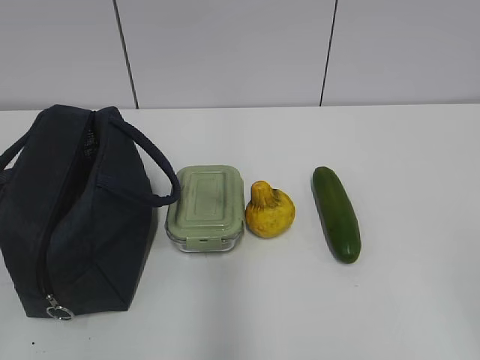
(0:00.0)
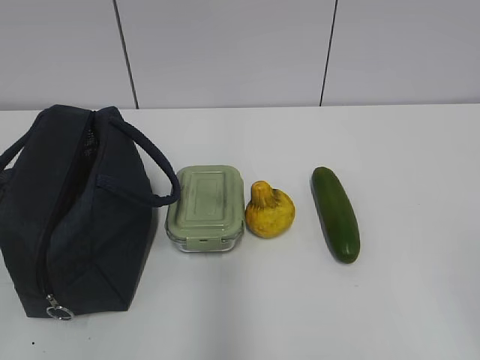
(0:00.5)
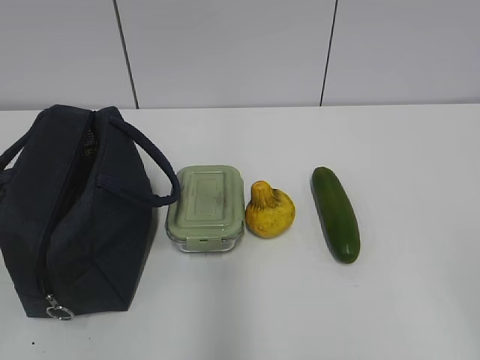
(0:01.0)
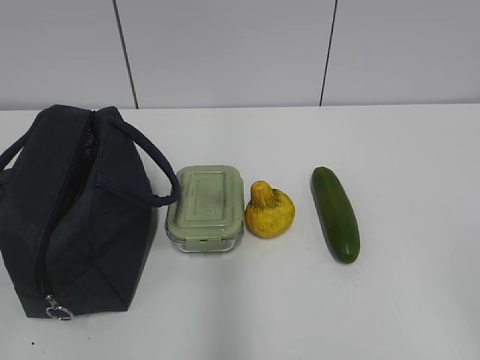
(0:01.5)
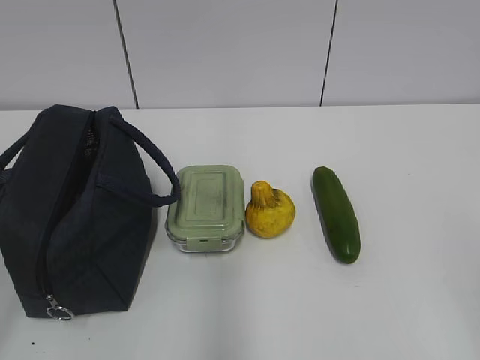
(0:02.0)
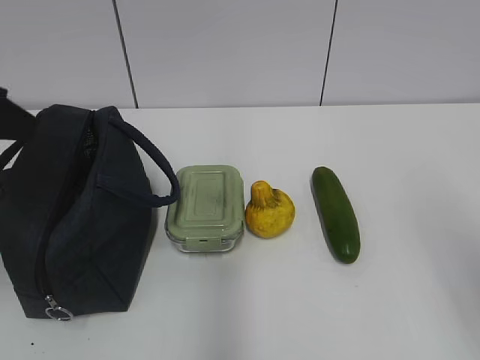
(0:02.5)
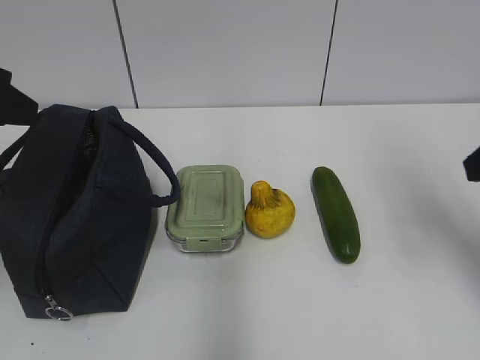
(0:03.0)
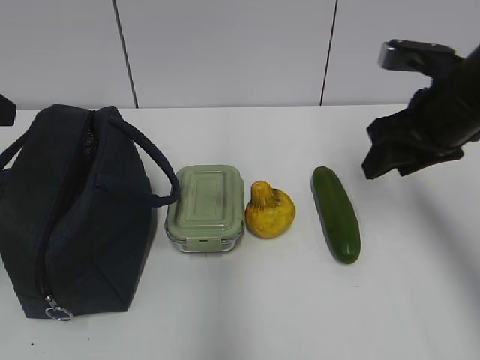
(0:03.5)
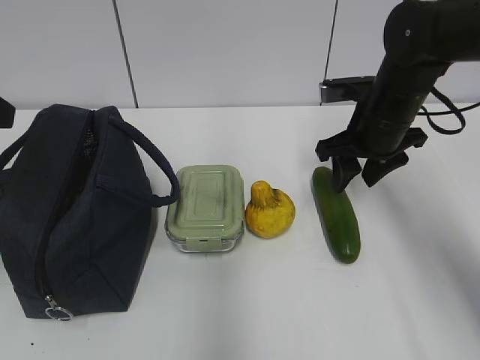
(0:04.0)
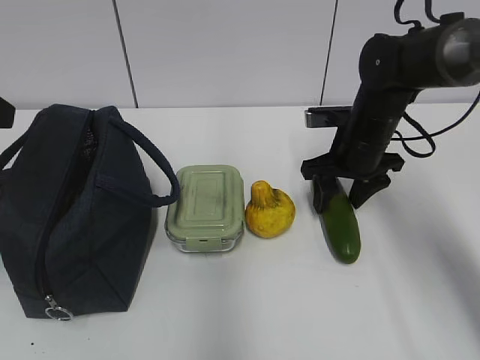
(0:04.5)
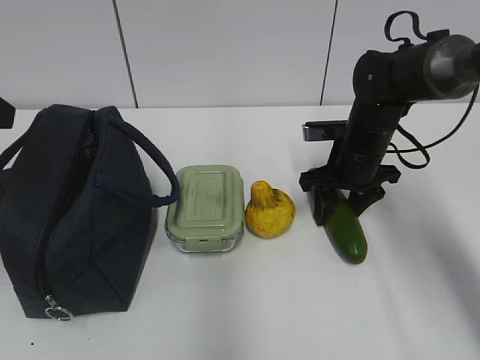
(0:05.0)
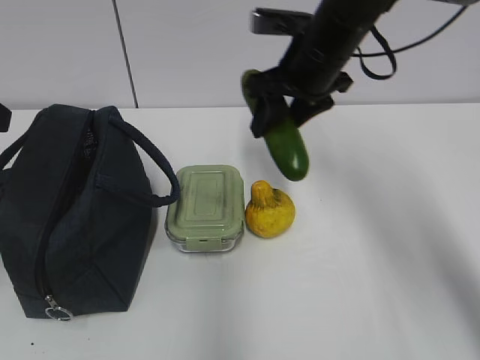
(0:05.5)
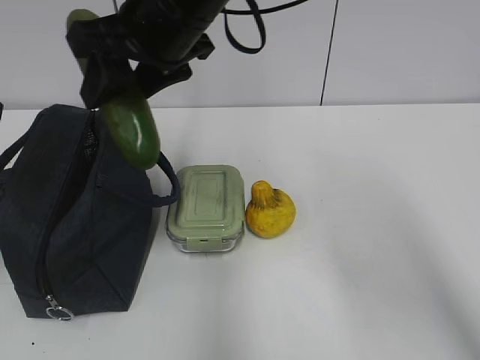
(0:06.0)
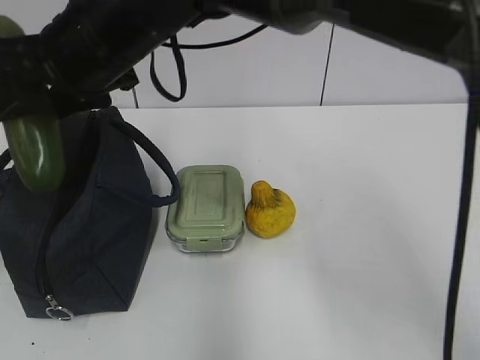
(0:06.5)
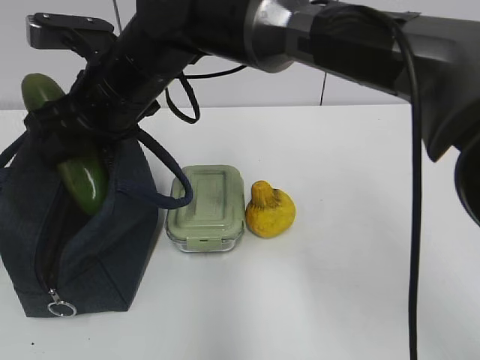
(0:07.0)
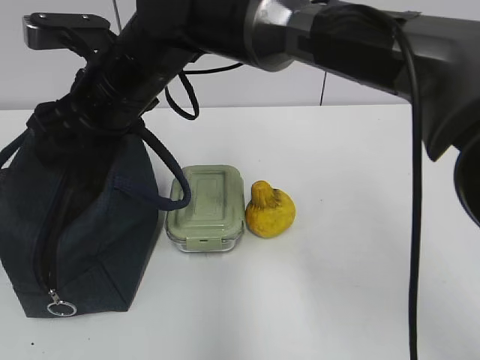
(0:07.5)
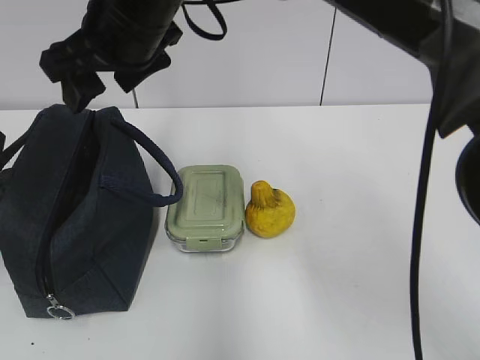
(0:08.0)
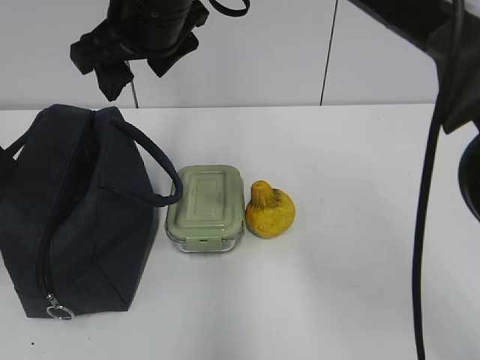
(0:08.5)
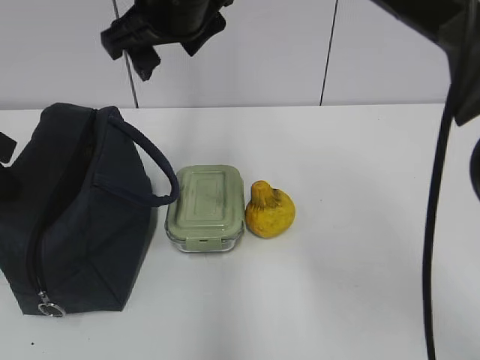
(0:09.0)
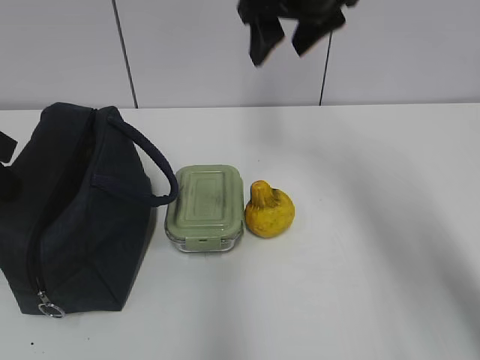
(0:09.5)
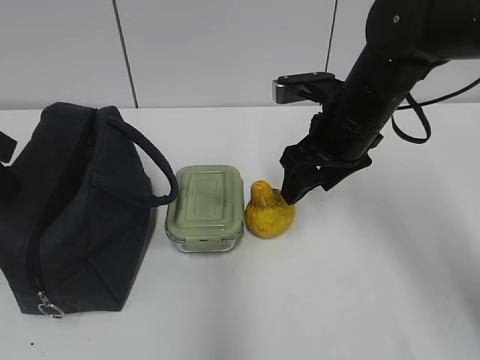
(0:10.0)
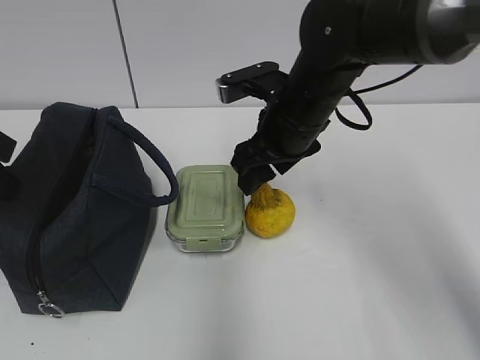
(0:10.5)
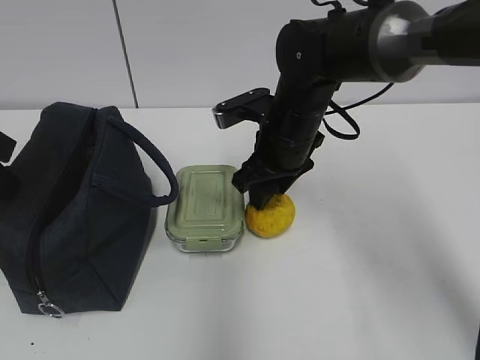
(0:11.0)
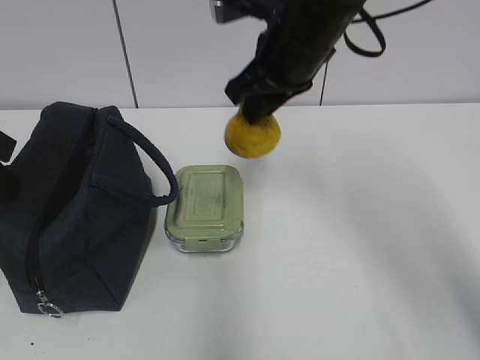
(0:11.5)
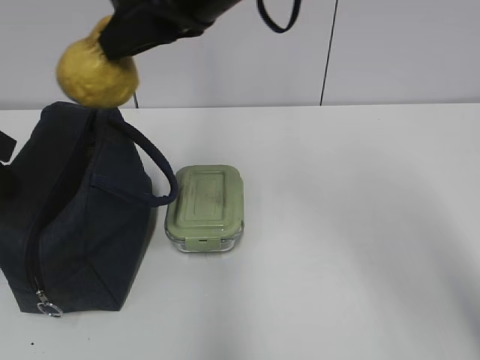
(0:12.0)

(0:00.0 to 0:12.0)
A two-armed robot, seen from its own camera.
Step, 0:00.0 - 0:04.5: Grab the cucumber with your right hand.
Step, 0:07.0 - 0:07.5: Place it into the bag with your right hand.
Step, 0:08.0 - 0:11.0: Grab the pear with your right hand.
0:02.0 - 0:04.0: The right gripper is displaced forward by about 40 cm; the left gripper moves forward, approximately 15 cm.
0:04.0 - 0:06.0: The right gripper shifts about 25 cm to the left and upward.
0:08.0 - 0:10.0: The left gripper closes its fingers; the right gripper moves to the right and downward, some 25 cm.
0:10.0 - 0:12.0: The right gripper goes some 20 cm upward and to the left, and closes its fingers.

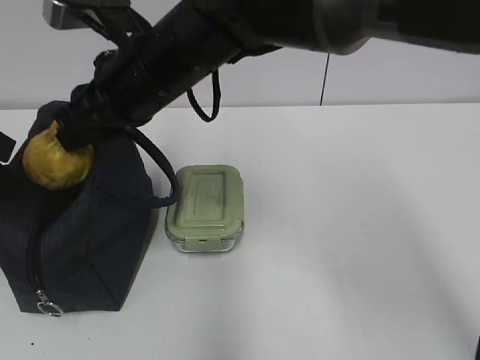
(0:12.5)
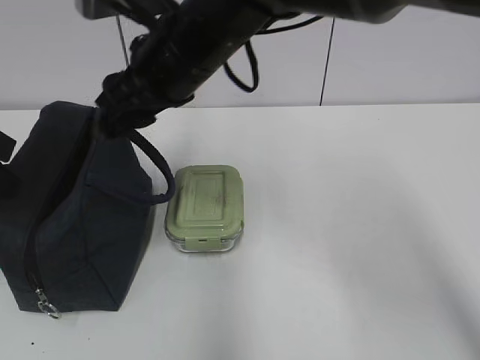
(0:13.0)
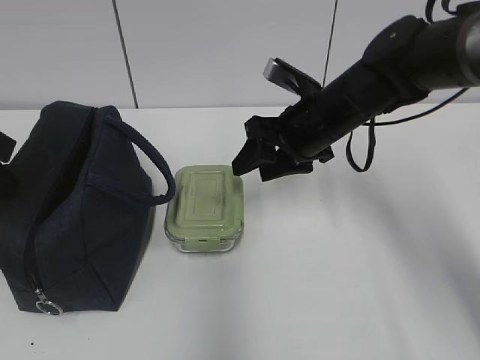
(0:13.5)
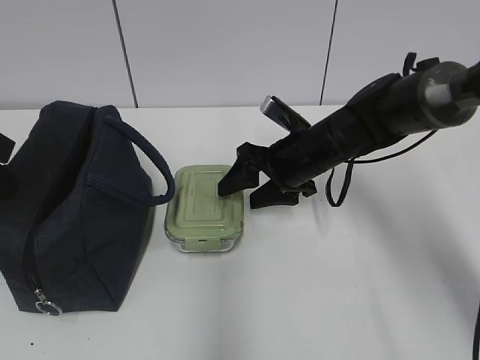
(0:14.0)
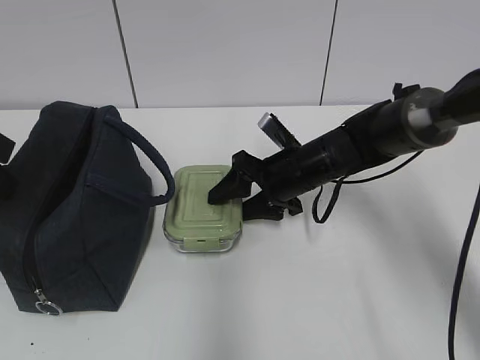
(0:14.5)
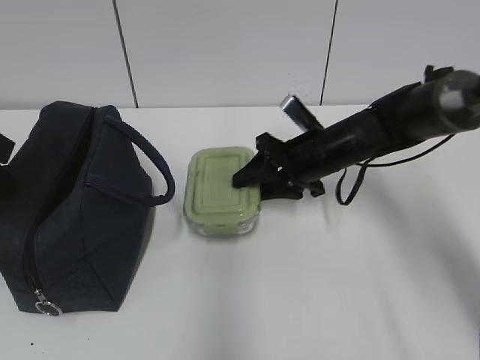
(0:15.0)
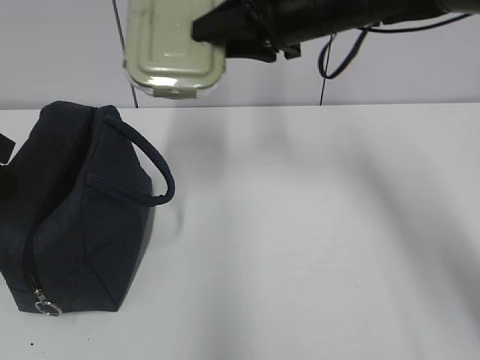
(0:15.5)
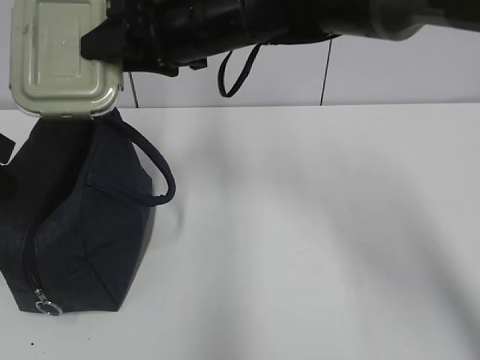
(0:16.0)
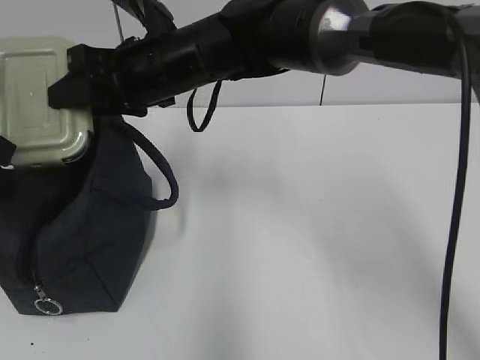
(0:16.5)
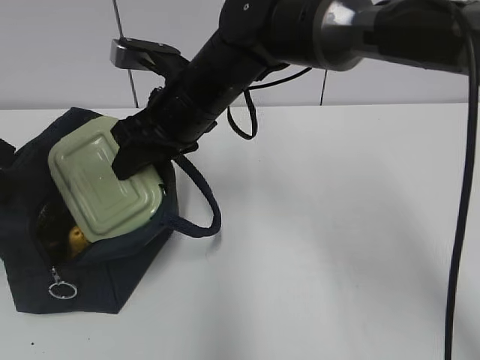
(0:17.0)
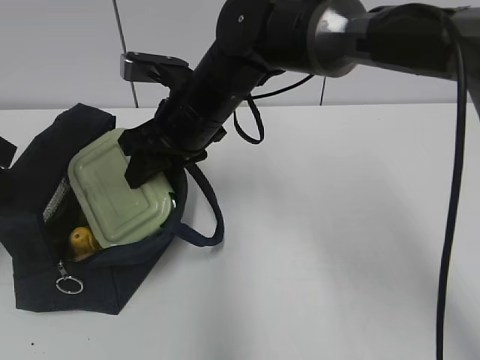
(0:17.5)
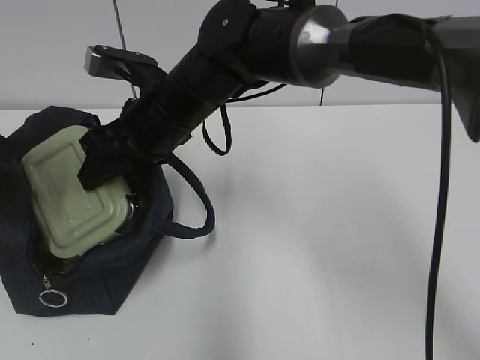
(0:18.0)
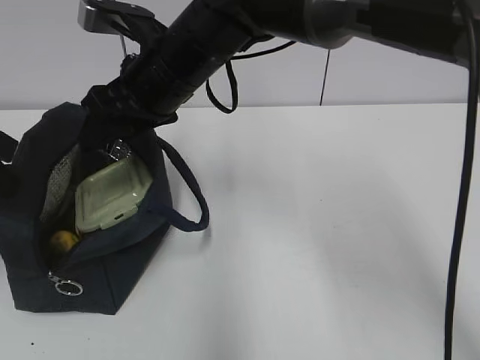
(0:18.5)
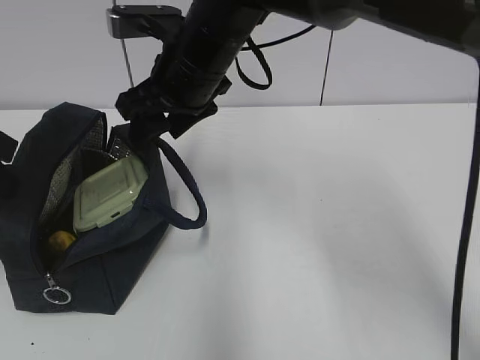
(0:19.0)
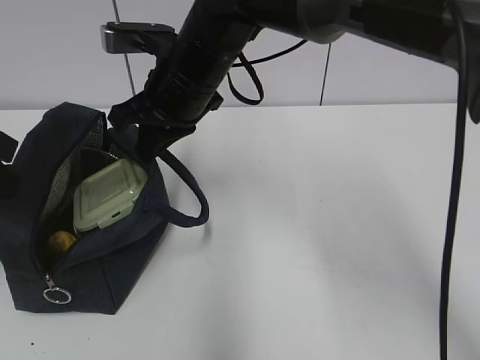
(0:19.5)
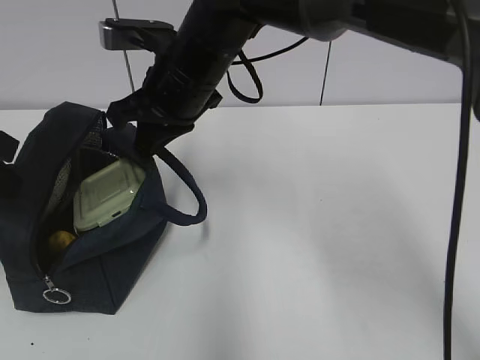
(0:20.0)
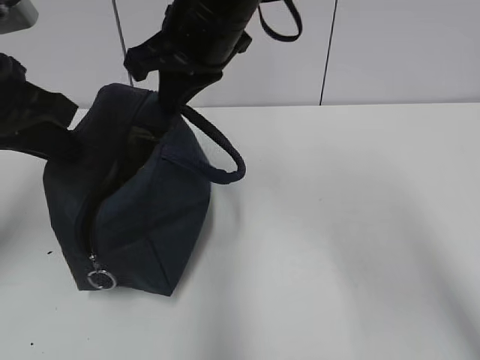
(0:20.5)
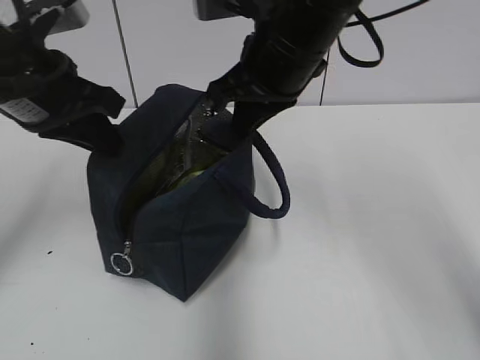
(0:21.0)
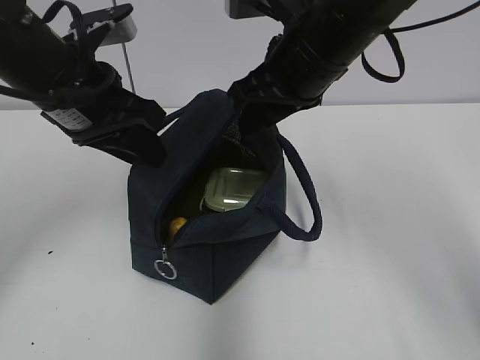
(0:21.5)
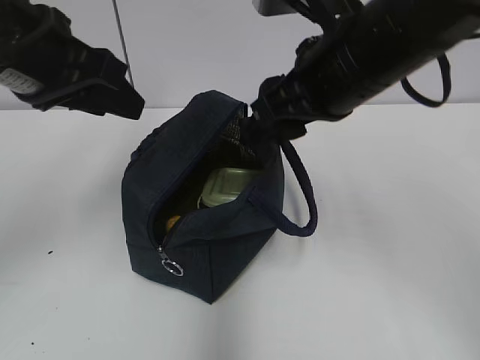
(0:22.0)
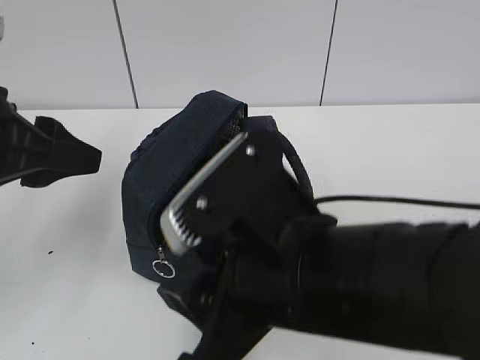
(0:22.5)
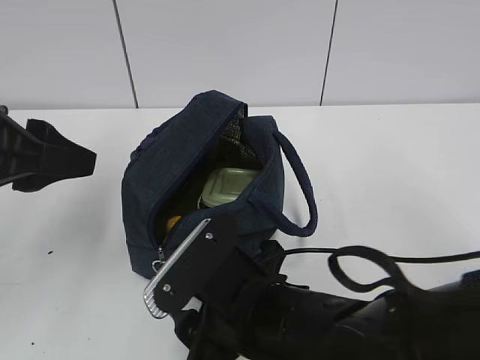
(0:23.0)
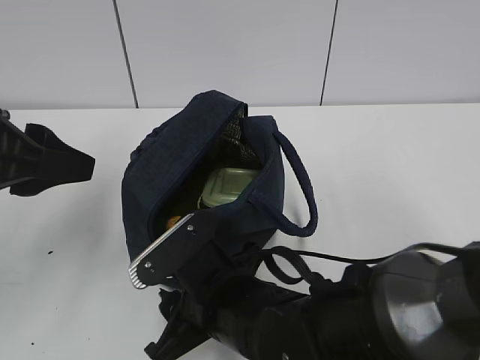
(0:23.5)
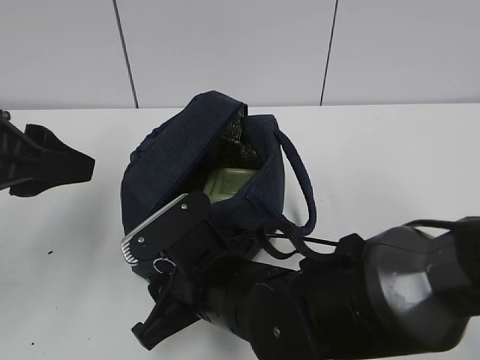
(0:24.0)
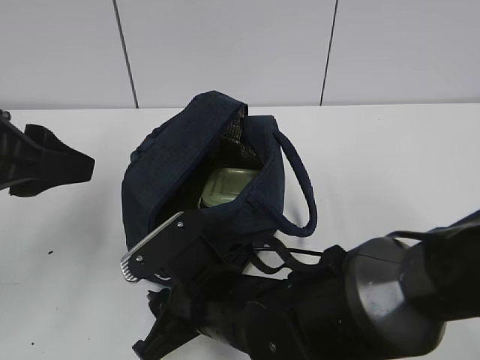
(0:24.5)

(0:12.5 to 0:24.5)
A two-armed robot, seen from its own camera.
Step, 0:13.0 - 0:14.5: Grab the lunch box with your right hand.
Step, 0:19.0 - 0:19.5: Grab the lunch bag with your right hand.
Step, 0:20.5 - 0:21.5: Move the lunch bag to the right.
0:12.5 - 0:14.5: The right gripper is displaced downward and to the right by some 25 cm, and opens up.
0:14.5 - 0:16.5: The right gripper goes roughly 20 cm upward and to the left.
0:18.5 - 0:20.5: The left gripper travels to the right by about 5 cm. Meanwhile the right gripper moves upward, approximately 5 cm, and closes its fingers.
0:20.5 - 0:22.5: The right gripper heads backward and downward, covering roughly 25 cm, and opens up, while the left gripper shifts approximately 5 cm backward, and opens.
0:22.5 - 0:24.5: The right gripper travels downward, forward and to the left by about 15 cm.

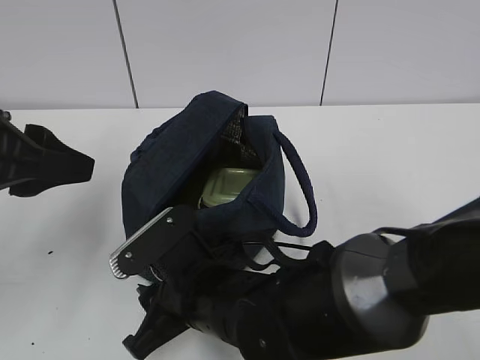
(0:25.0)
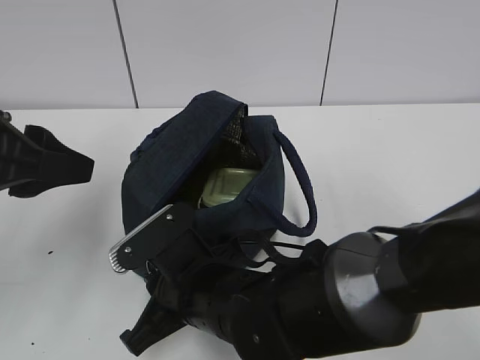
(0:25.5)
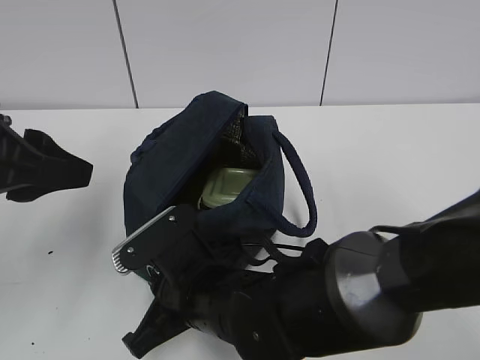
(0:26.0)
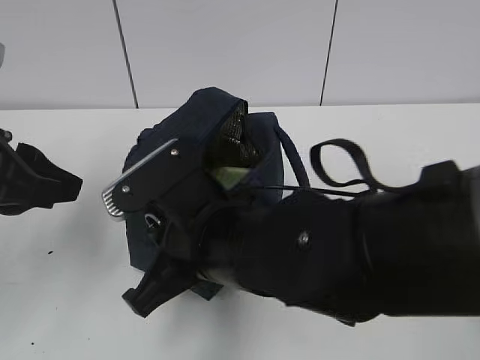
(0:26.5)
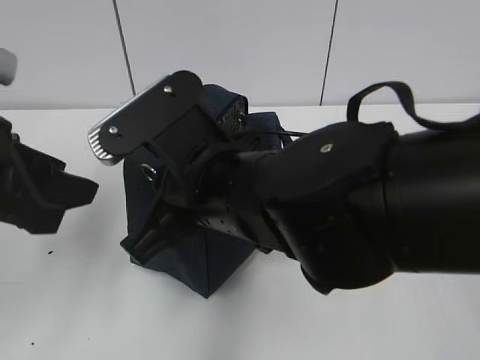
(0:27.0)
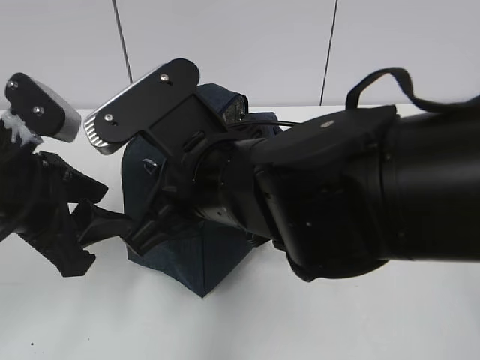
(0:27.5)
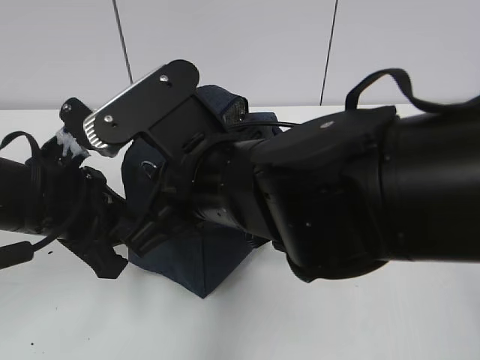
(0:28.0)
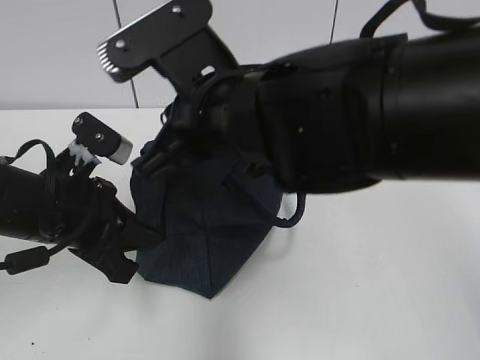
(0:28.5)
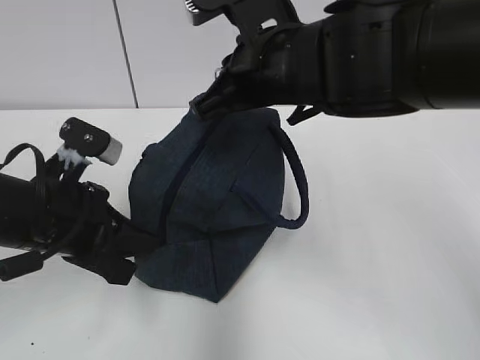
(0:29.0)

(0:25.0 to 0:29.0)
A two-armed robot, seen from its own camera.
0:25.0 - 0:27.0: The right gripper travels upward by some 15 cm, and closes.
0:27.0 - 0:29.0: The left gripper is displaced downward by some 10 cm, and closes up; the right gripper moves forward, to the right and upward, approximately 10 cm.
